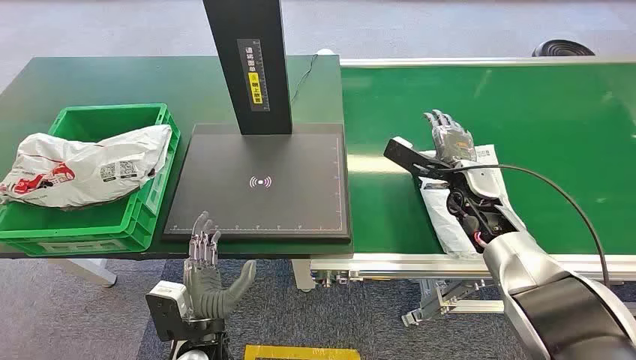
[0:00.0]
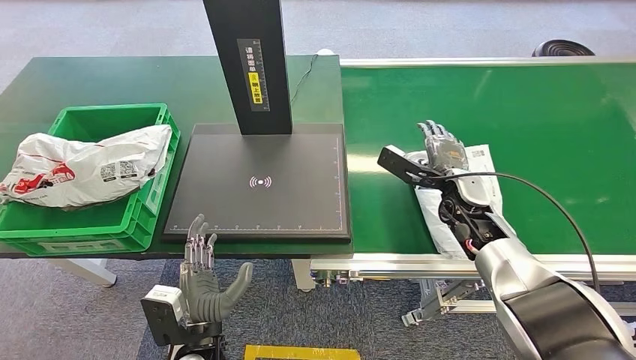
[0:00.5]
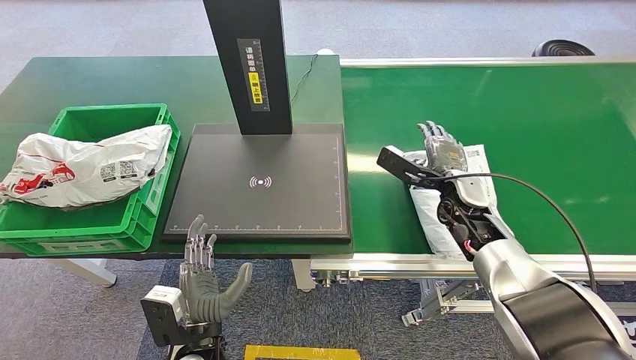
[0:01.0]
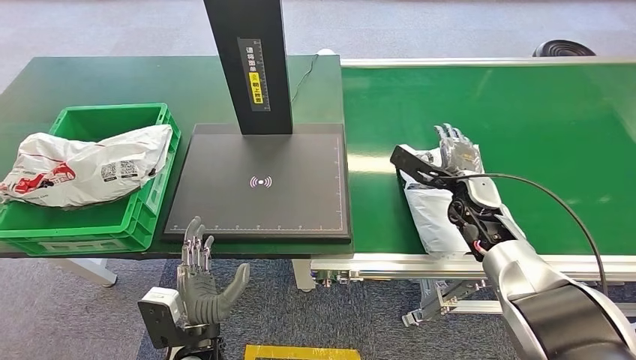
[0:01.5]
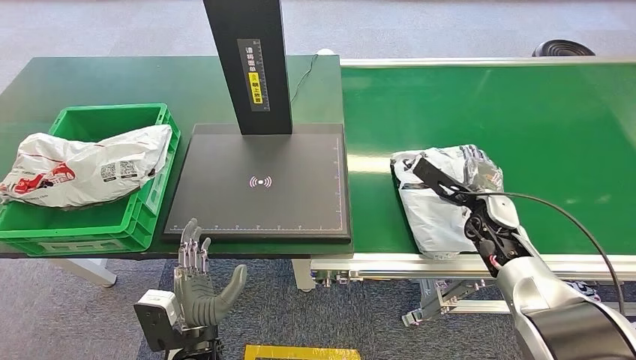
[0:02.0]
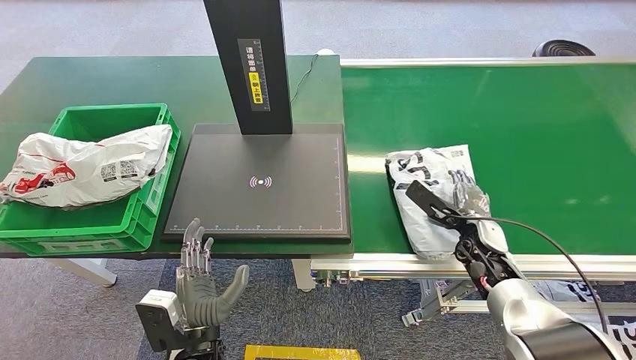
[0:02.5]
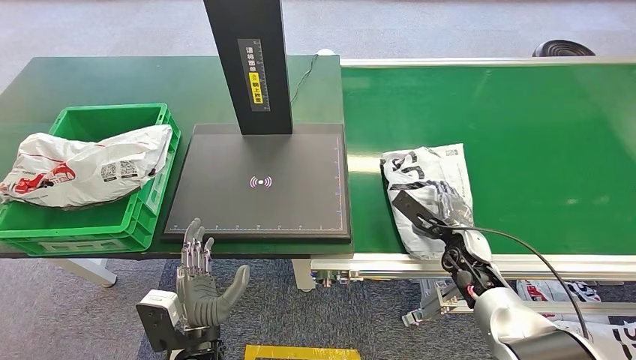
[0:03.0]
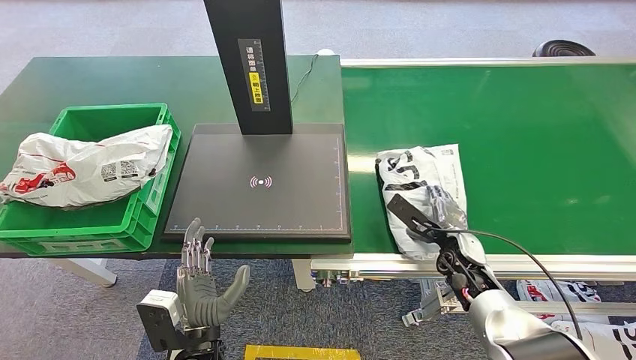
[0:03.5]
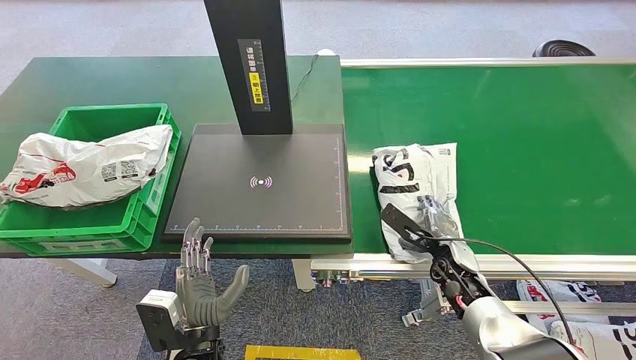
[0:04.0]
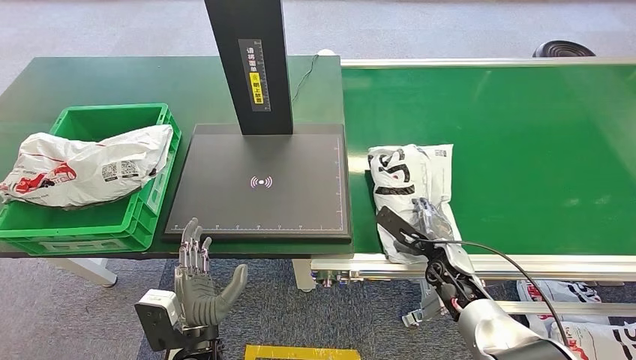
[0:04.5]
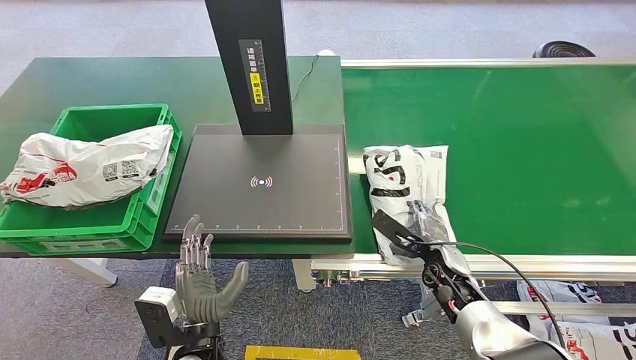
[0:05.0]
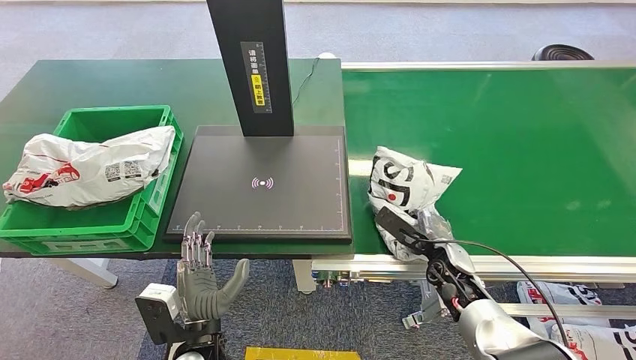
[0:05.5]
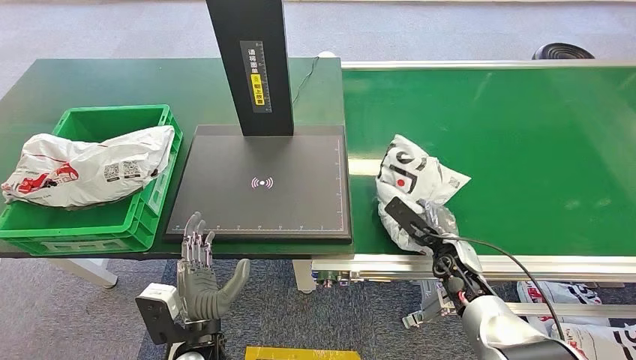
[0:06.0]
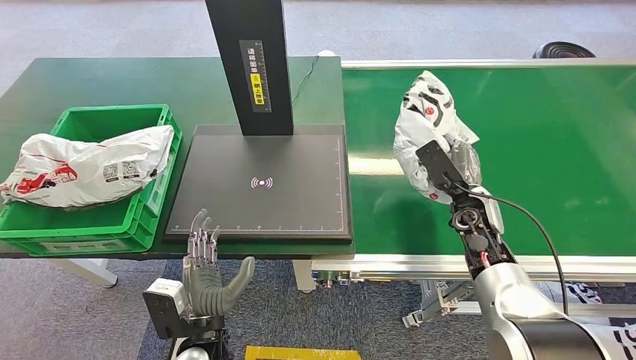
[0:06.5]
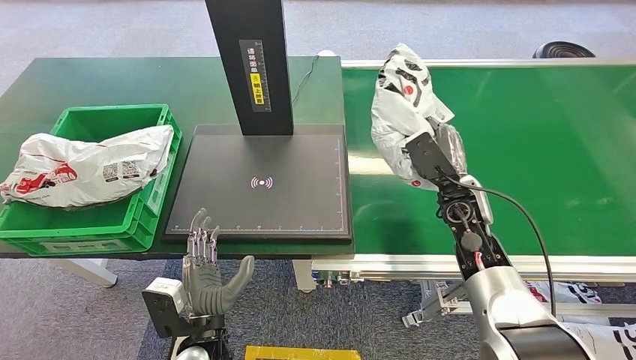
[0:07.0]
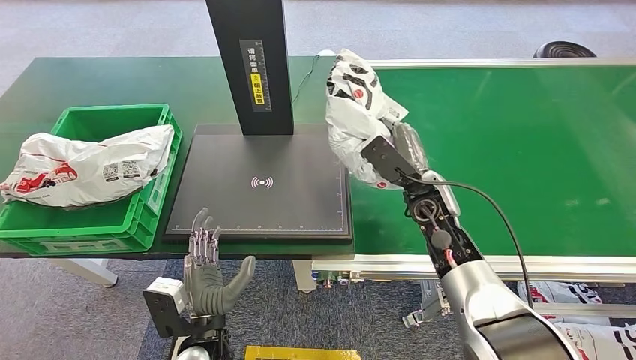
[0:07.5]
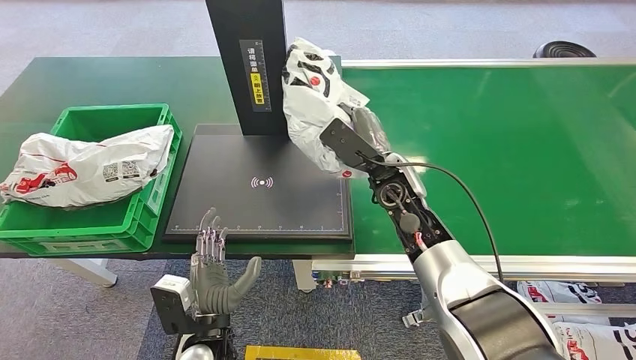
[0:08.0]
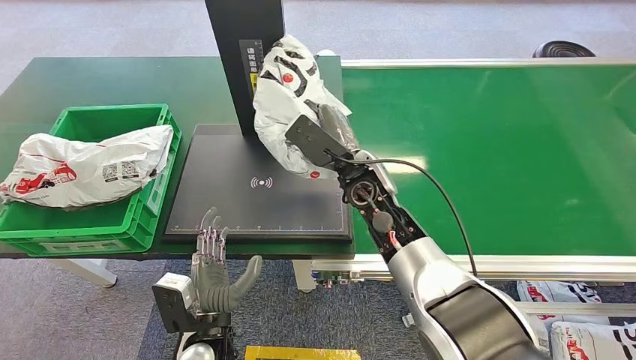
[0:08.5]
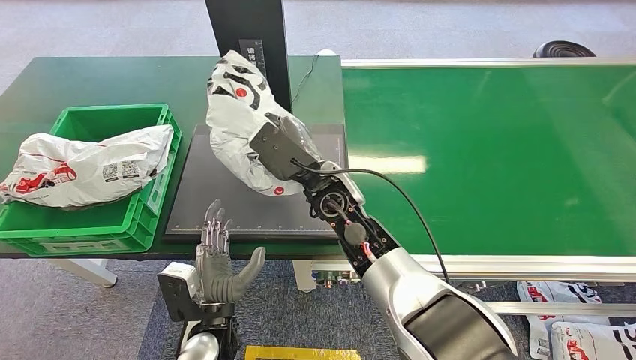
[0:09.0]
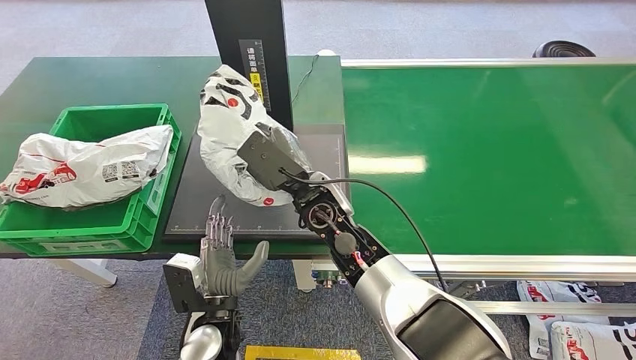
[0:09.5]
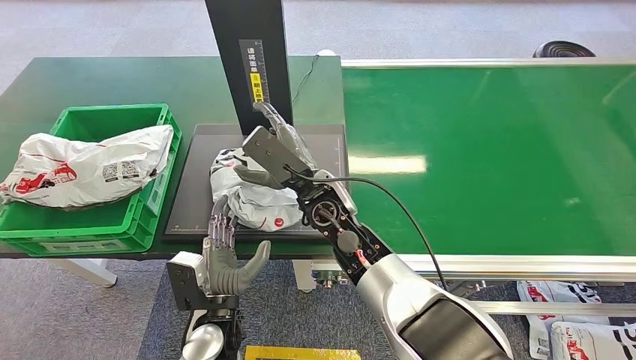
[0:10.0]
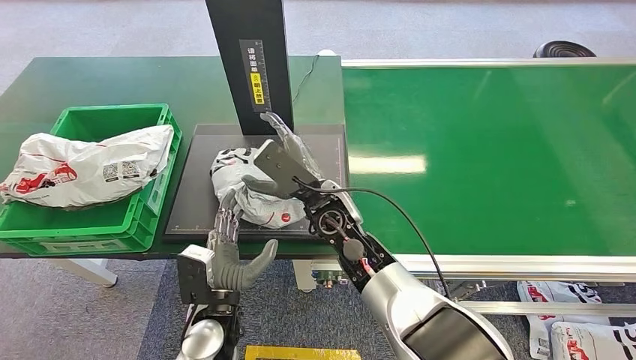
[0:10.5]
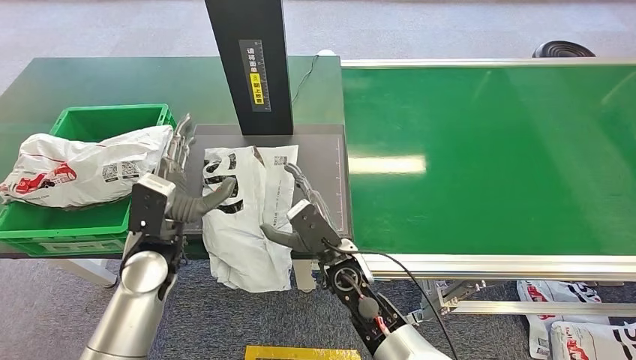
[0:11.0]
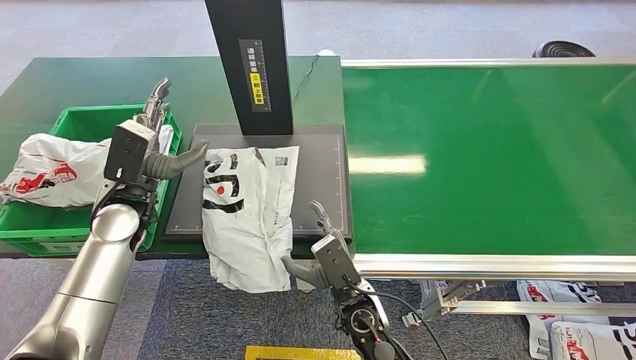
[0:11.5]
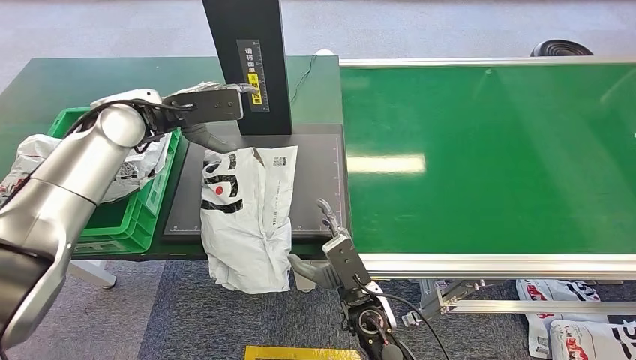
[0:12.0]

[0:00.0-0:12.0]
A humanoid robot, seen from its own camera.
Task of the whole recording: Weigh the package on the weighing device and place it in the left basket.
Step, 0.0 to 6.0 s: Pick up the package from the conveyor belt.
Step, 6.5 to 11.0 s: Place the package onto the inbound machine.
2.0 to 4.0 s: The right hand goes approximately 10 cm downward, to the left and backward.
4.0 to 6.0 s: The hands stay close to where they were, moving slightly.
6.0 to 8.0 s: The right hand is displaced upward, to the left and forward by about 25 cm.

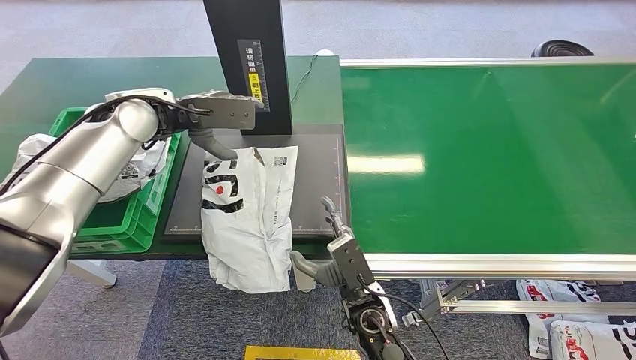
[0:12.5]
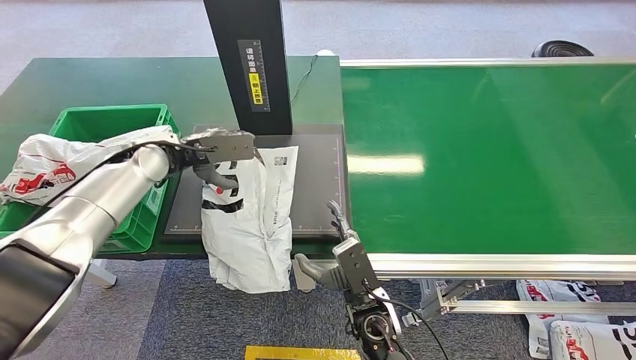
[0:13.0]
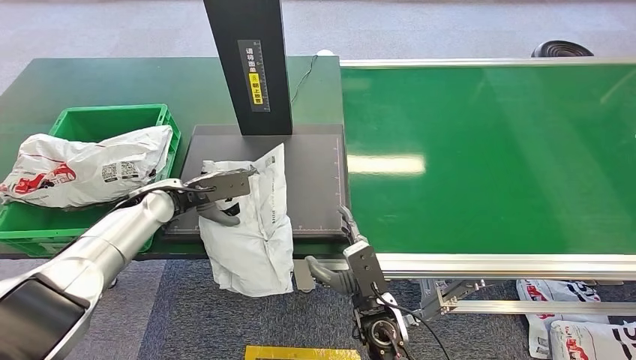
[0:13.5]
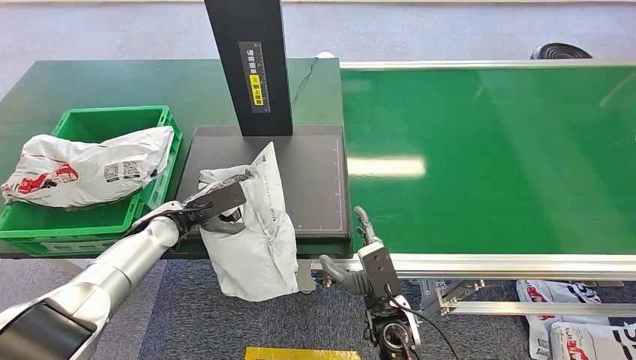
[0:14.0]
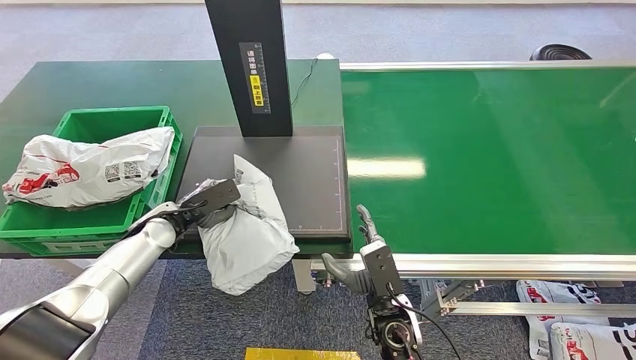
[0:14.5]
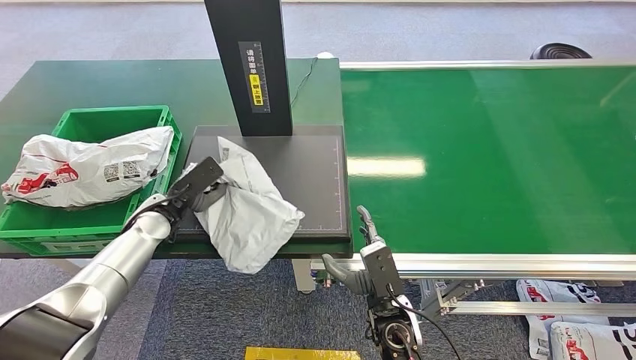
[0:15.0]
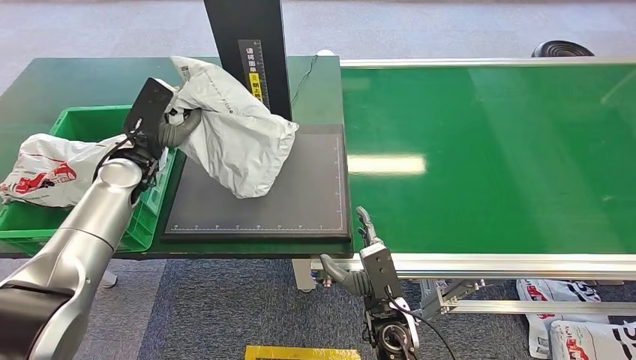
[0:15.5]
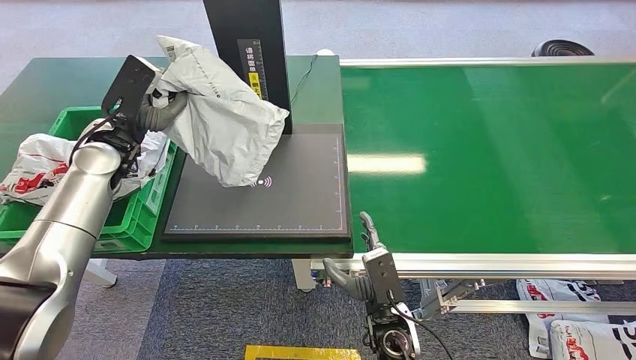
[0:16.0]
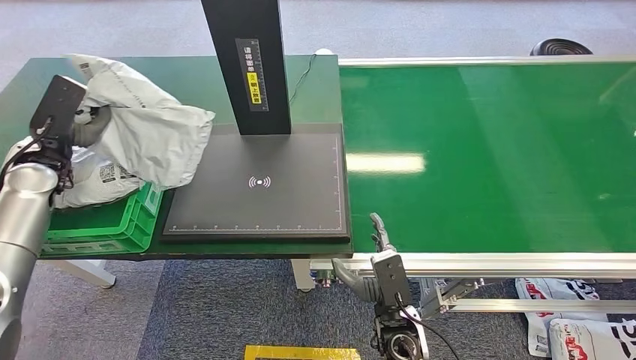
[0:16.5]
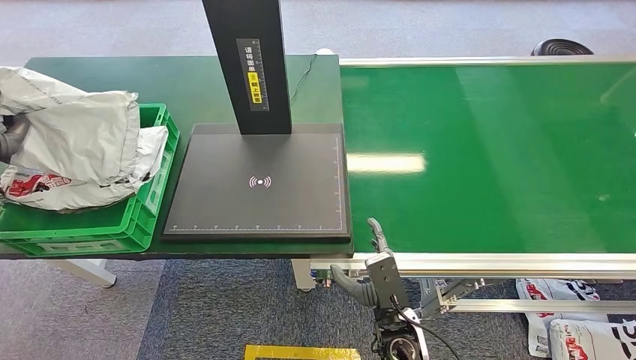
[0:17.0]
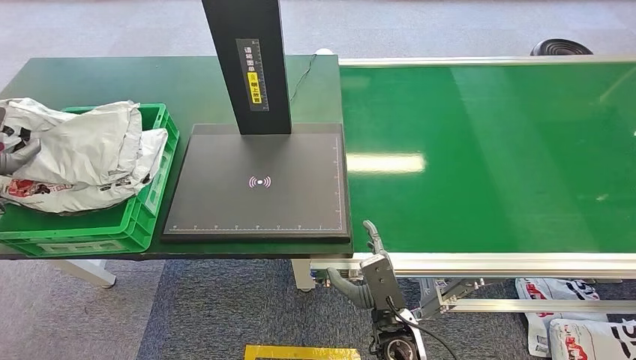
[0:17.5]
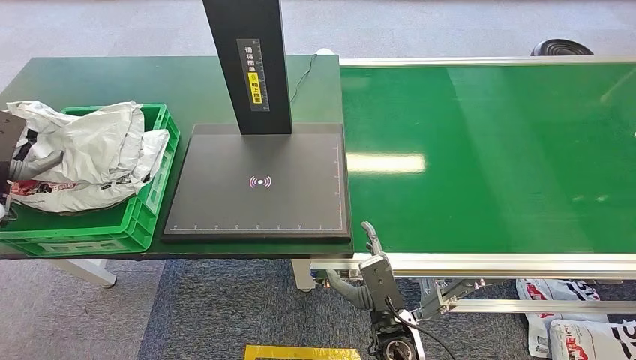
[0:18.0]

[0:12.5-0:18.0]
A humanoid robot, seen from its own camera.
Task of the whole recording: Weigh the package on the weighing device and place it in the left basket.
Step, 12.5 to 15.0 s: Pick up the package from the inbound machine.
Step, 15.5 to 18.0 s: Place the package into the parcel locker.
16.0 to 18.0 s: The left hand travels to the left by approximately 20 cm.

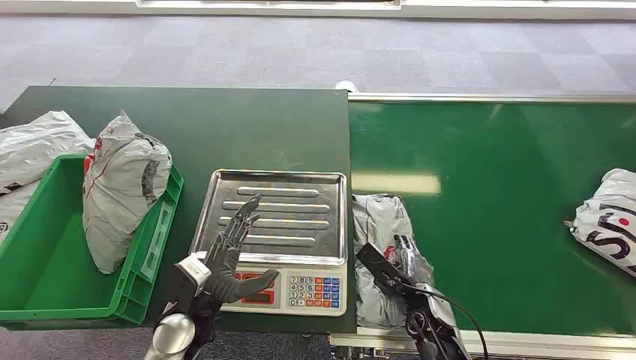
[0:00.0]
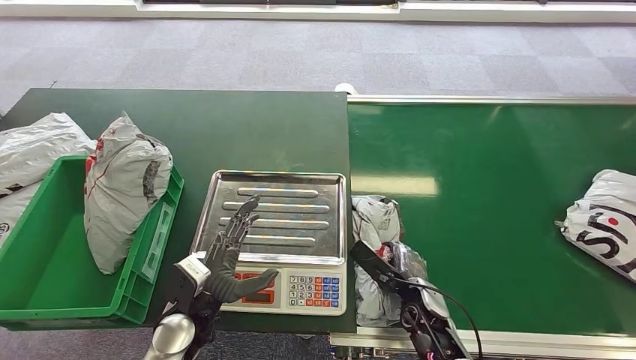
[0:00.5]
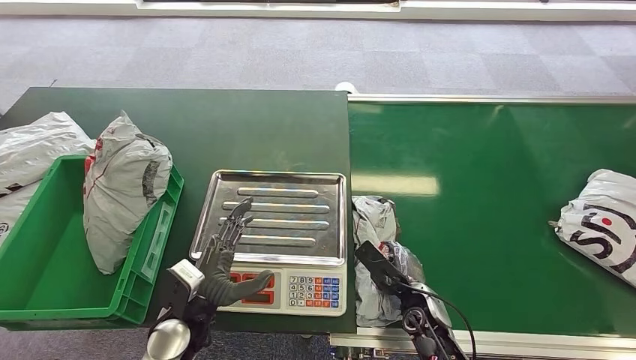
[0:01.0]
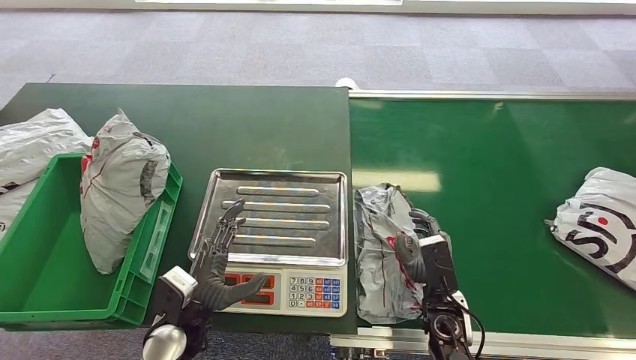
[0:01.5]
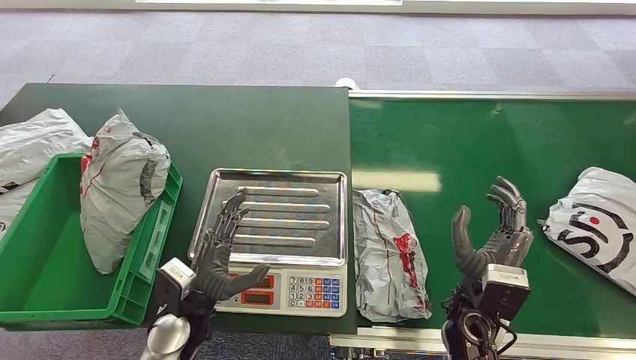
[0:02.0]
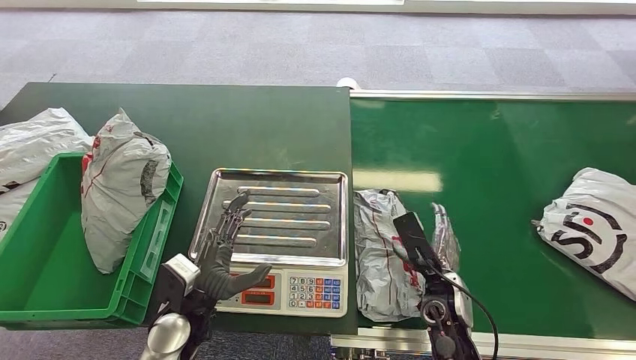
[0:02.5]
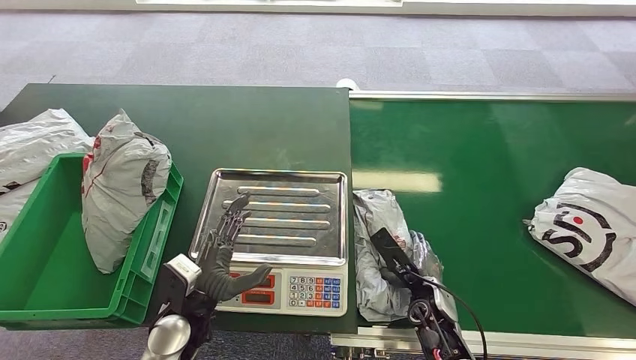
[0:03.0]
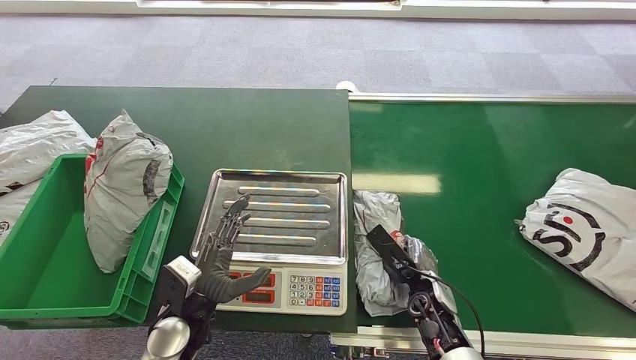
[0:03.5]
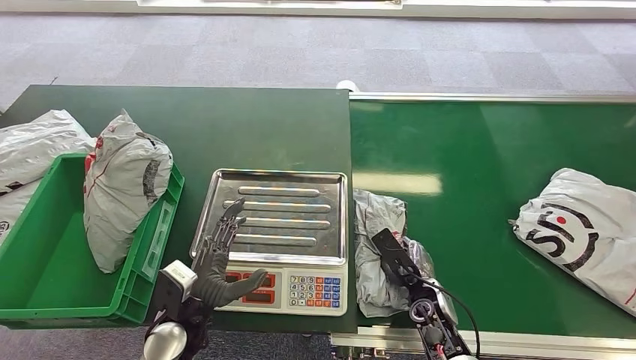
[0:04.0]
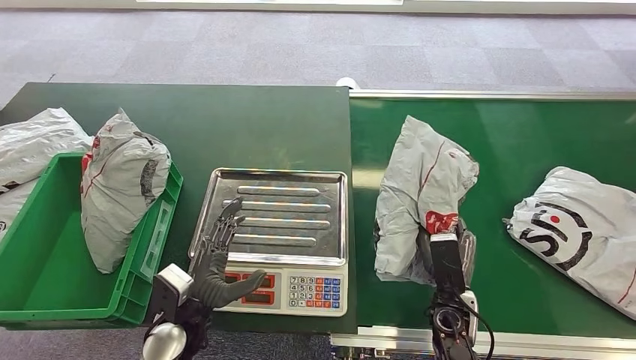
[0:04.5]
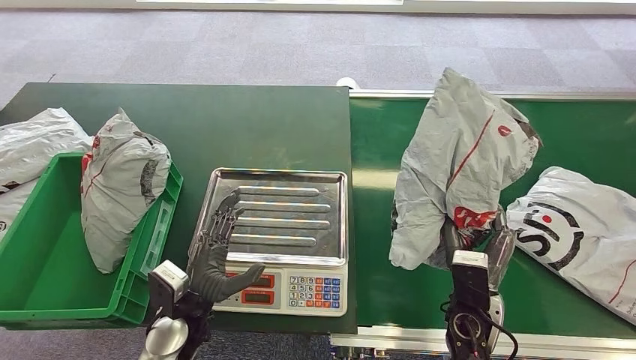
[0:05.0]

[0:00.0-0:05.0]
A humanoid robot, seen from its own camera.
Task of the whole recording: Weigh the package on the weighing device and place it in the left basket.
Step, 0.0 to 4.5 s: Pick up the package from the conveyor belt.
